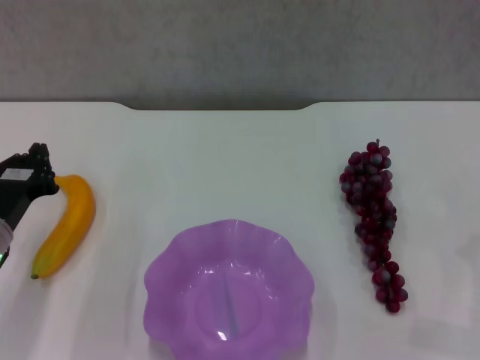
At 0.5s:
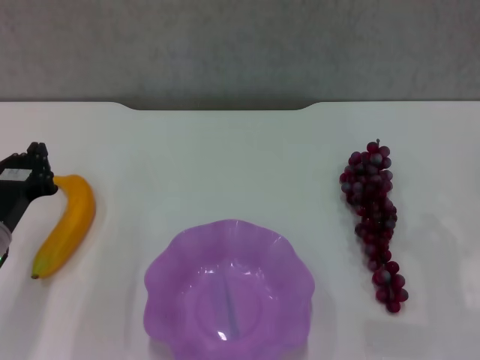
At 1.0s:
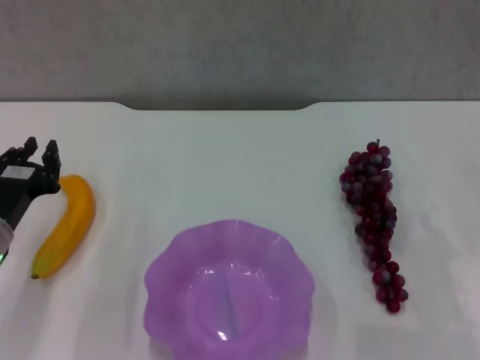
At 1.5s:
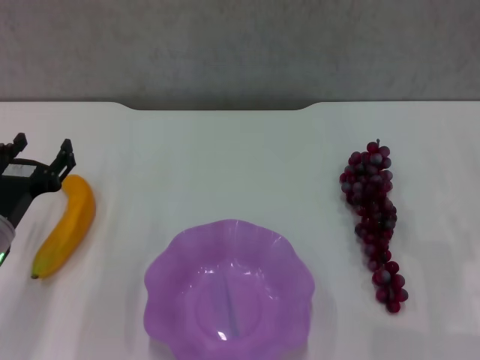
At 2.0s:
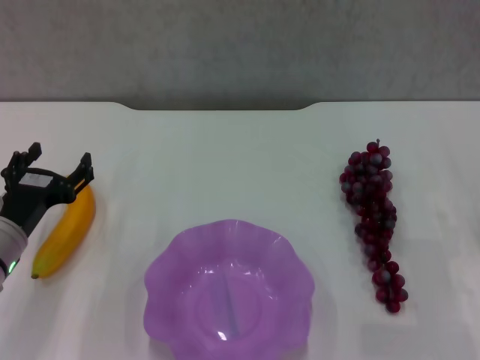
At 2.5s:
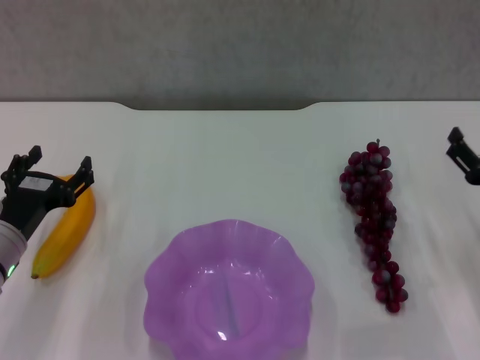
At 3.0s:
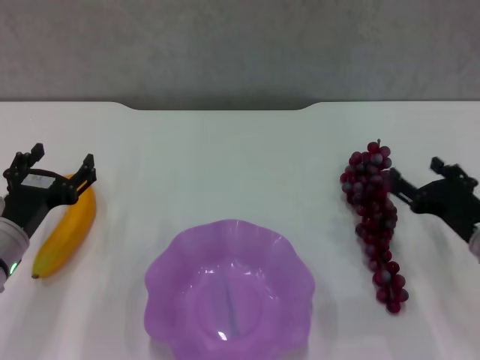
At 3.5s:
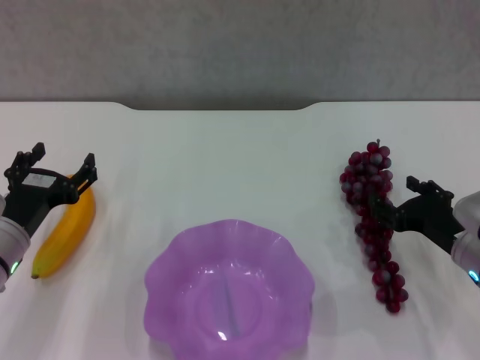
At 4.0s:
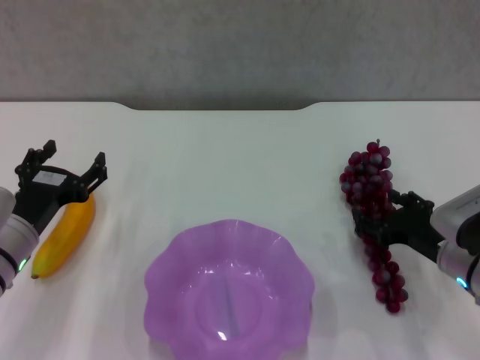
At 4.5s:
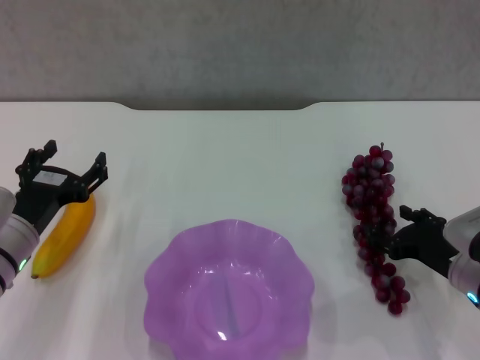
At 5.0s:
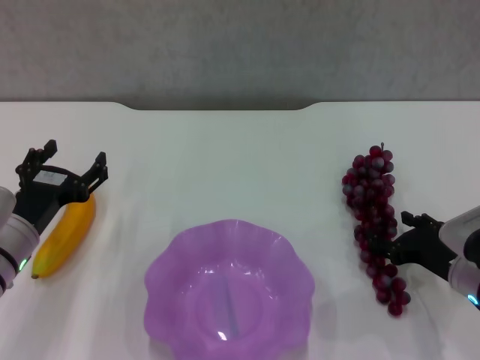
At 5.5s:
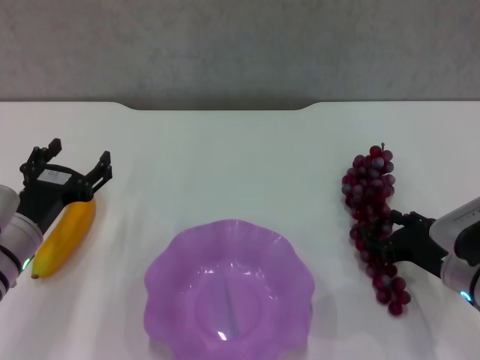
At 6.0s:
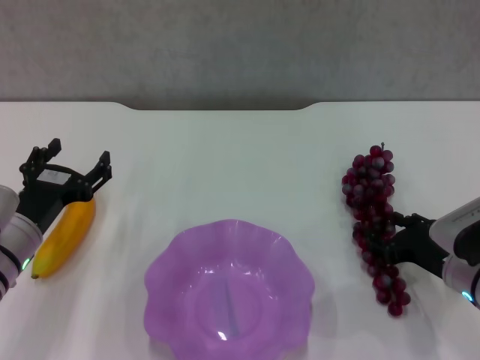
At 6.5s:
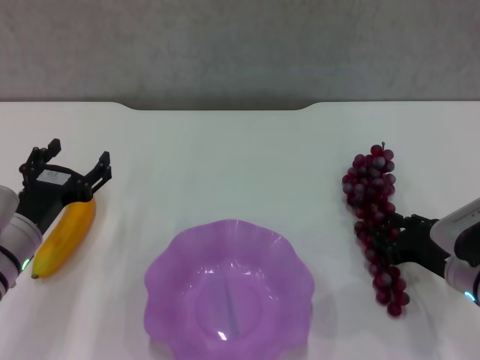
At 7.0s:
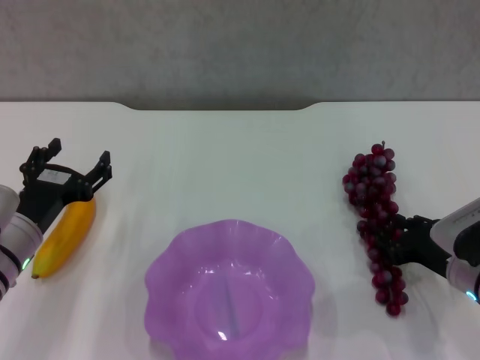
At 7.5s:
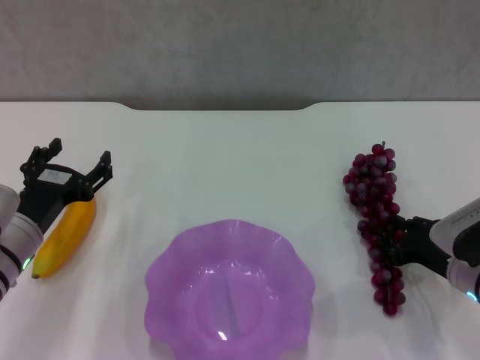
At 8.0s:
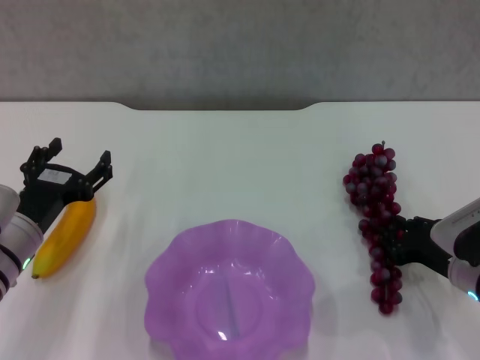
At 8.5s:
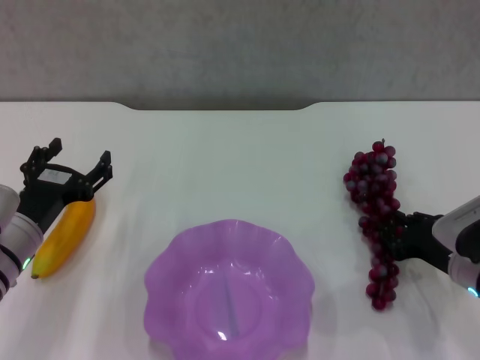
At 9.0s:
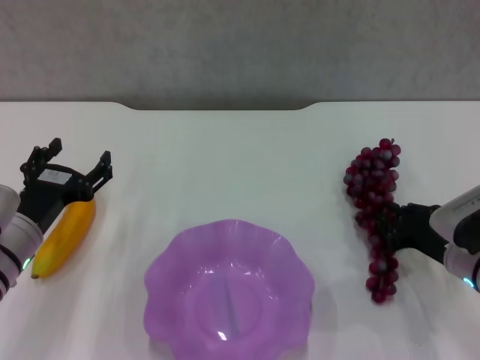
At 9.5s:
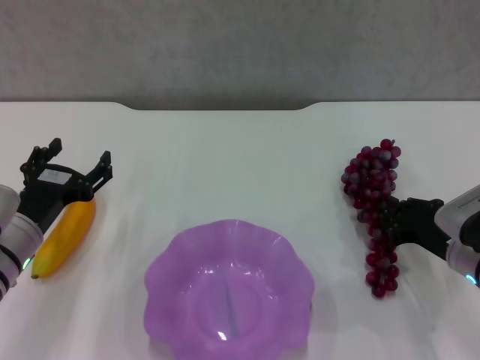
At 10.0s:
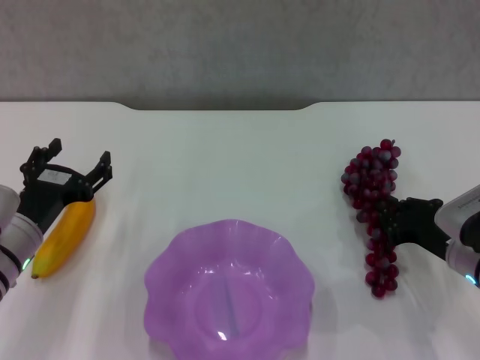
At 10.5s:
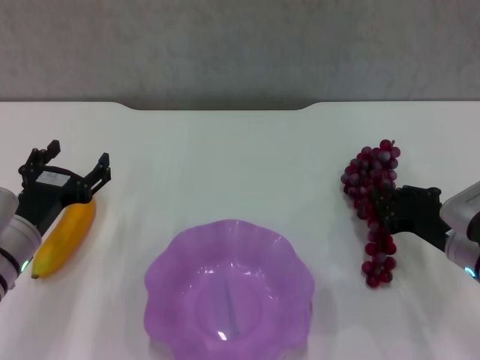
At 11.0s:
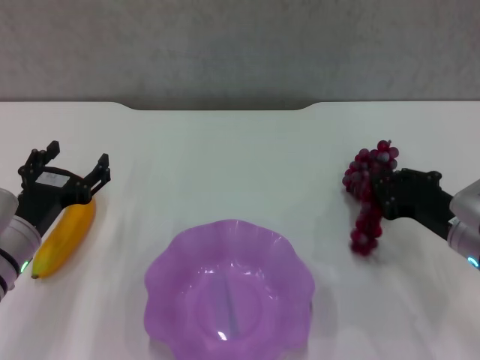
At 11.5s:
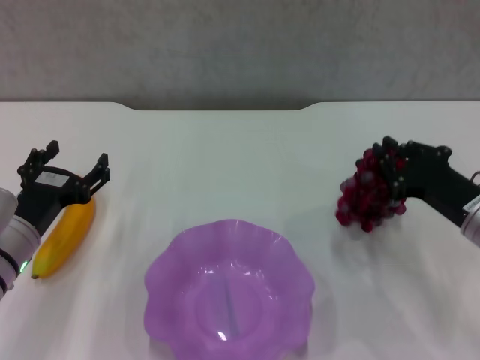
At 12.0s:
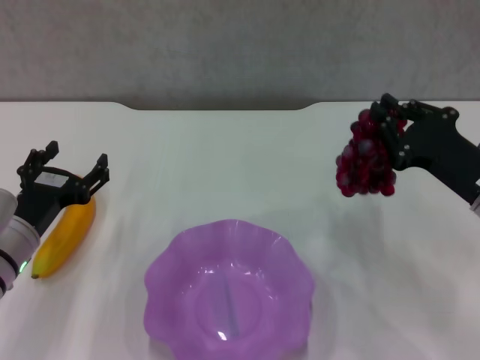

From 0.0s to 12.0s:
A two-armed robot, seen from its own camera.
Step, from 0.0s to 6.5s: Grasp the grape with right gripper.
From 0.0s to 2.0s: The left gripper opens its fingers.
From 2.0s to 4.0s: The right gripper shifts about 10 cm to the left.
From 4.0s to 6.0s: There are only small adjustments of the grippers.
From 6.0s to 8.0s: The two grippers keep their place.
From 8.0s to 10.0s: The grippers stay close to where they were, moving slightly.
From 10.0s to 12.0s: The right gripper moves upward, some 10 cm.

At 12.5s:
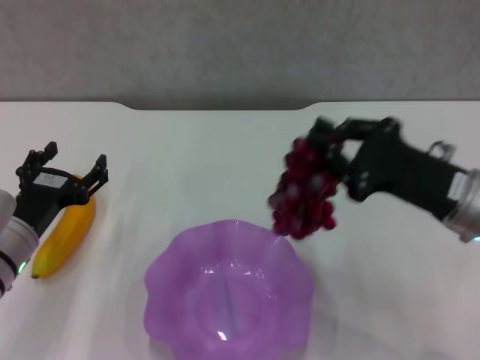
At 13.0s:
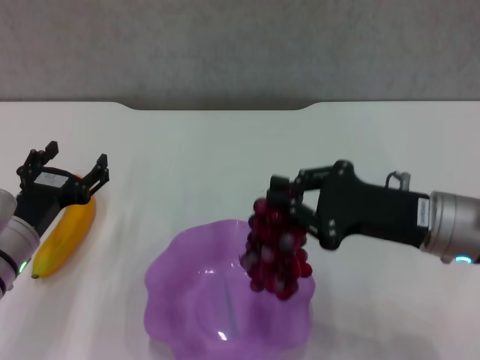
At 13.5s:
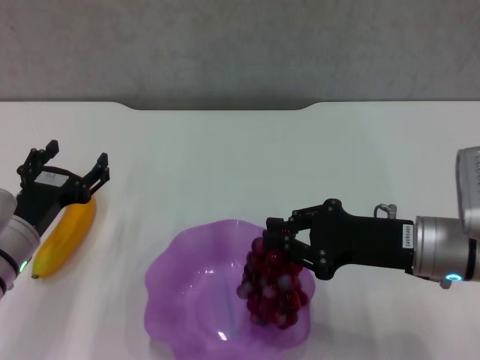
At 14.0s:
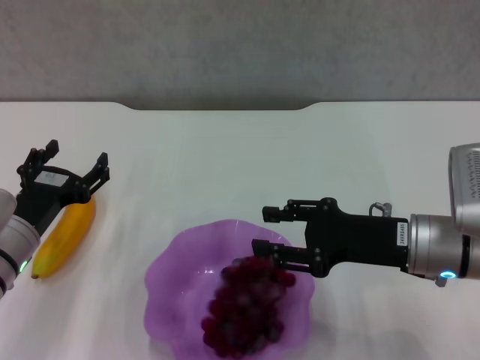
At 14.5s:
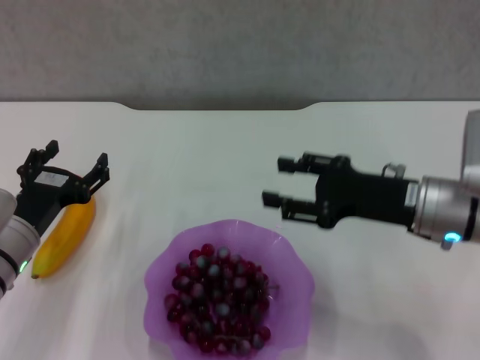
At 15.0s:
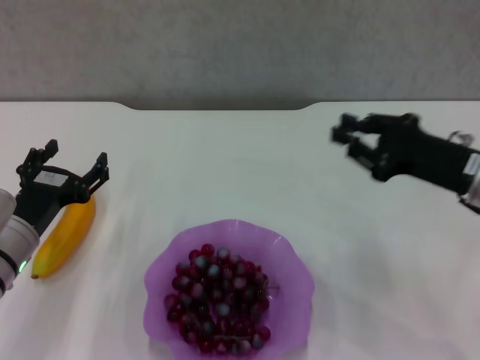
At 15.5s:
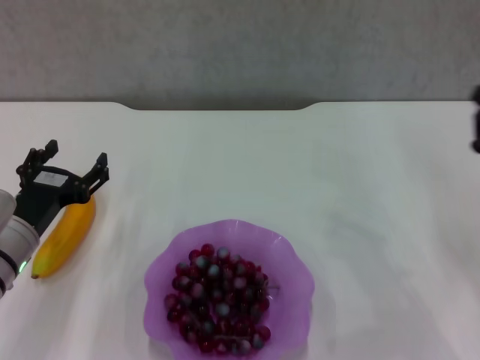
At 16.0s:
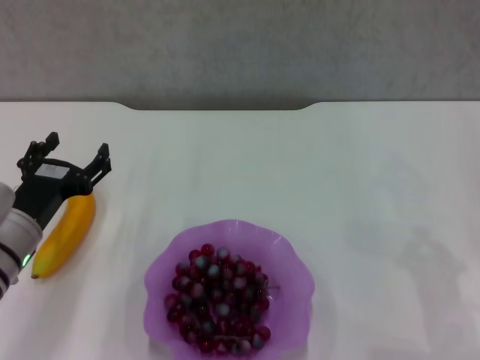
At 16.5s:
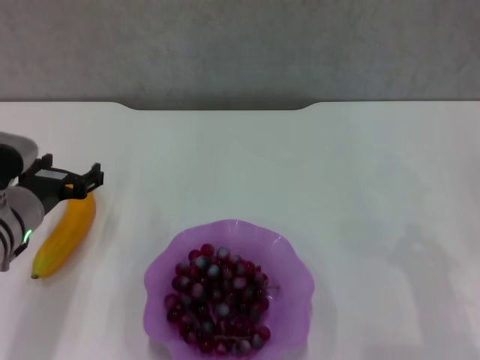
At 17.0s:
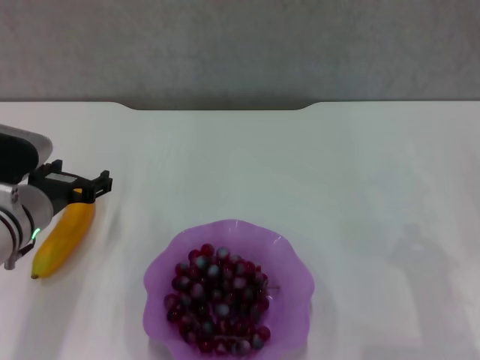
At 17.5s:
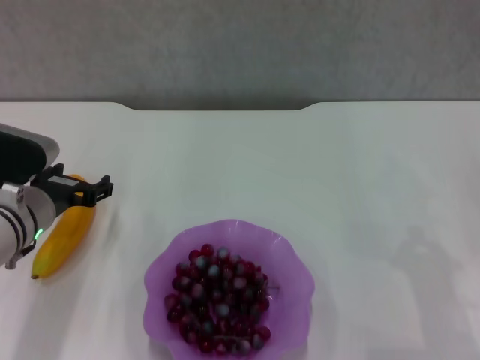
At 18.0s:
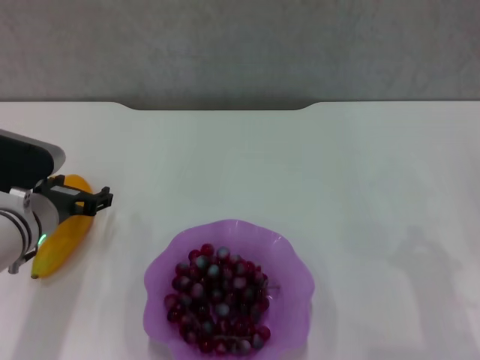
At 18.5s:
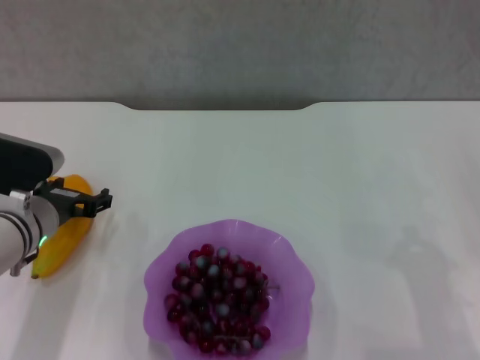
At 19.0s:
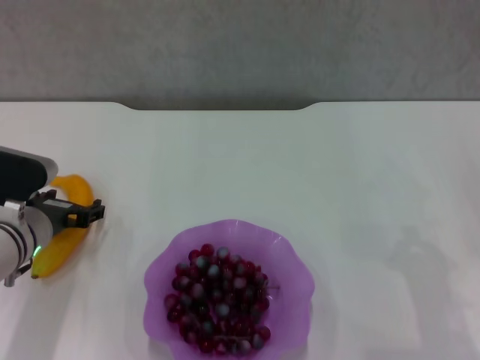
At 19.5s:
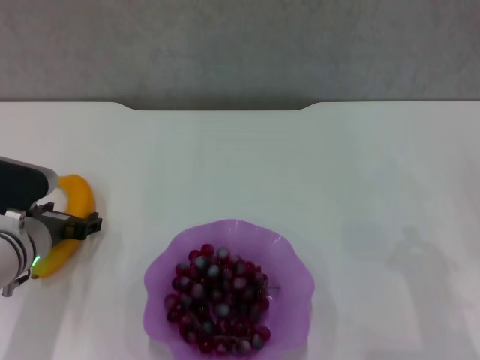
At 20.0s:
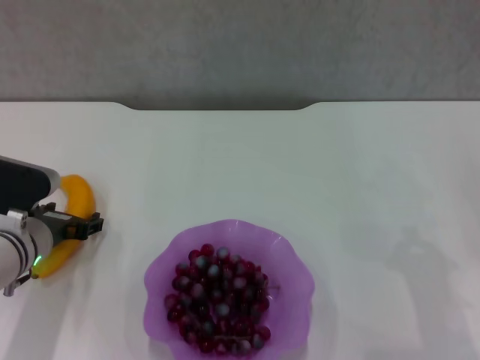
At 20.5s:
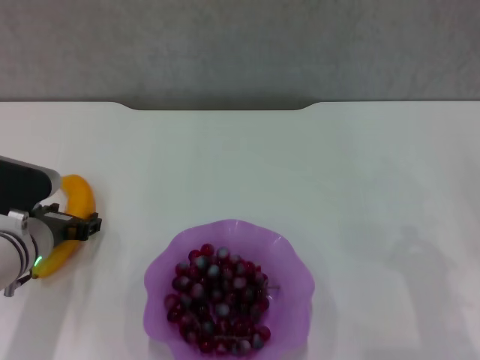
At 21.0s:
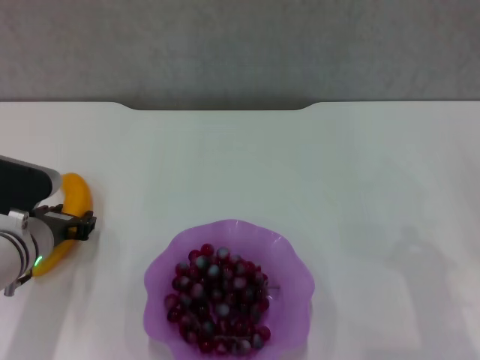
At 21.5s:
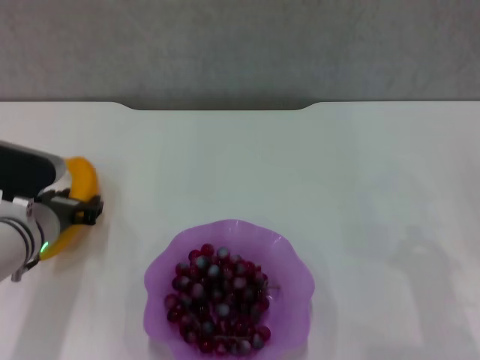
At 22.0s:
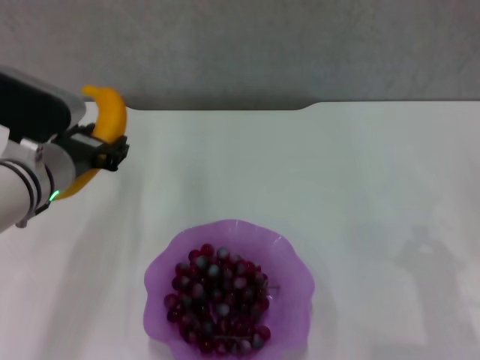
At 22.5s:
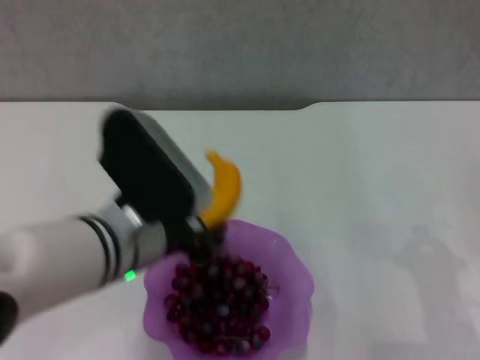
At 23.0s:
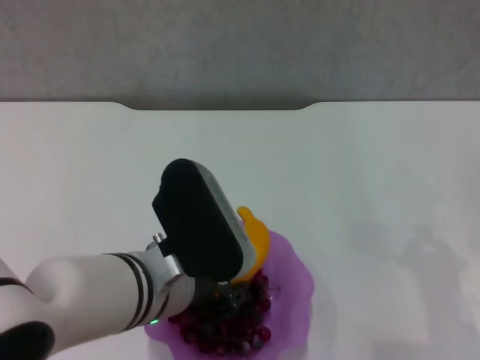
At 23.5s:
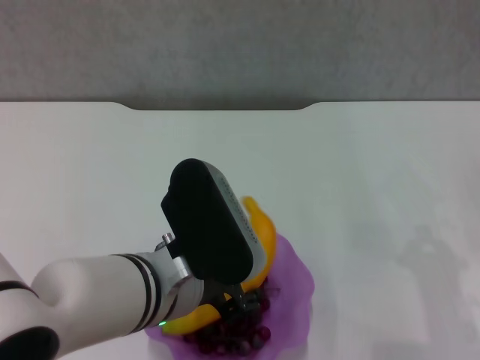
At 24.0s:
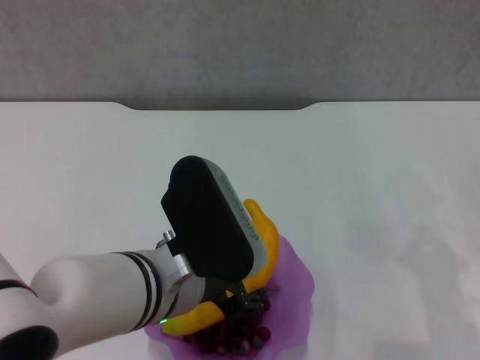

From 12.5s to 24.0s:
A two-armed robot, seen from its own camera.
Step, from 14.5s to 20.5s: Grasp the banana with left gripper.
From 12.5s to 14.5s: The right gripper opens its fingers.
From 14.5s to 16.5s: The right gripper shifts about 15 cm to the right and backward, and closes up.
From 16.5s to 20.0s: The grippers stay close to where they were, moving slightly.
From 20.0s to 22.0s: The left gripper goes about 10 cm upward, and closes up.
From 22.0s to 24.0s: The left gripper moves to the right and backward, approximately 15 cm, and opens its fingers.

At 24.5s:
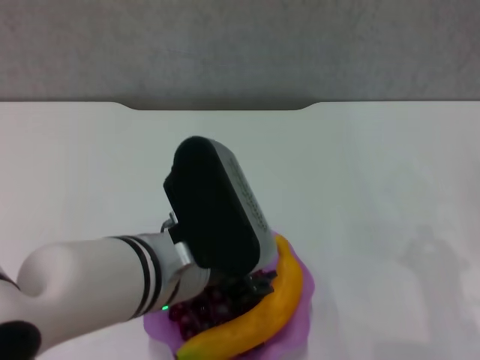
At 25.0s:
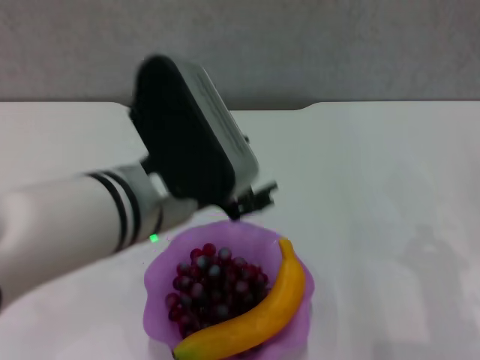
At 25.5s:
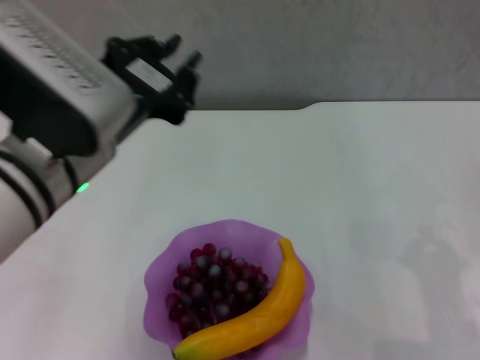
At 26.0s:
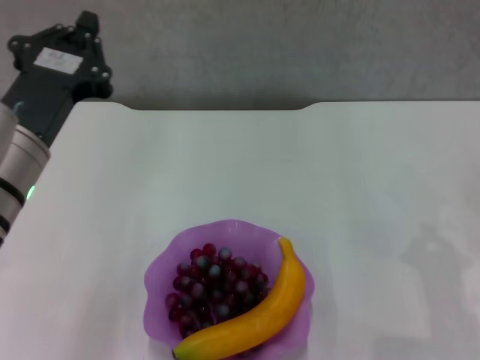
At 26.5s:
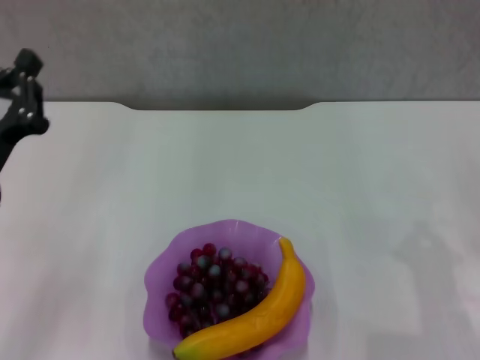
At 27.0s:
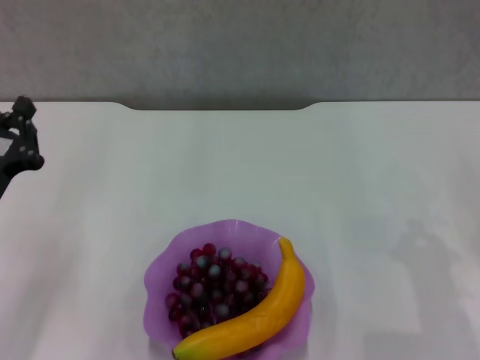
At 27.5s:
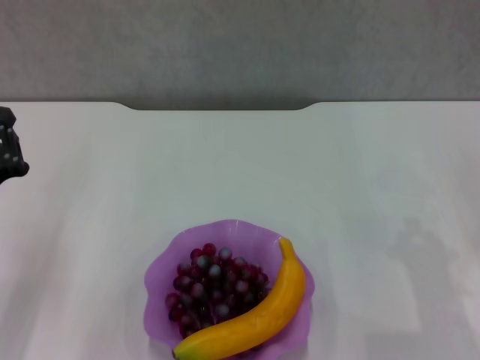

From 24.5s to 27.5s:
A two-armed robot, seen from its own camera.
From 24.5s to 26.0s: The left gripper goes roughly 10 cm to the left, and closes.
From 26.0s to 27.5s: The left gripper goes roughly 15 cm downward and to the left.
